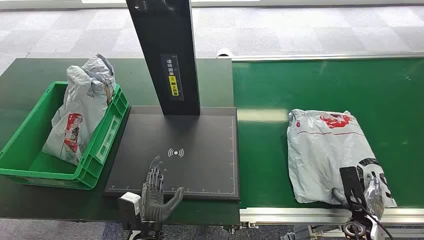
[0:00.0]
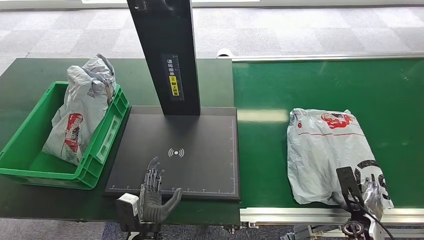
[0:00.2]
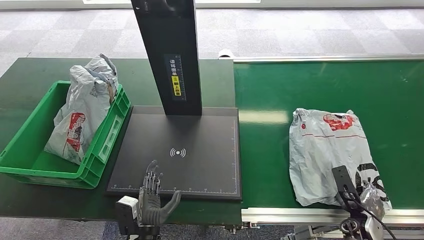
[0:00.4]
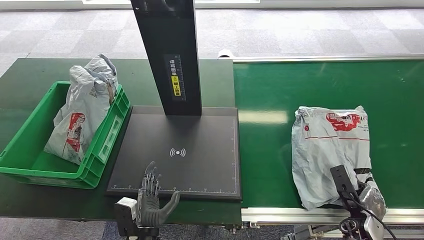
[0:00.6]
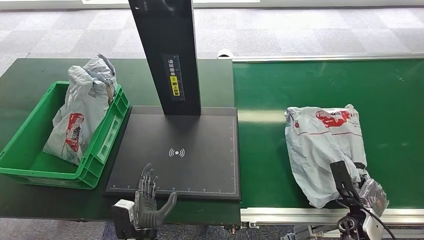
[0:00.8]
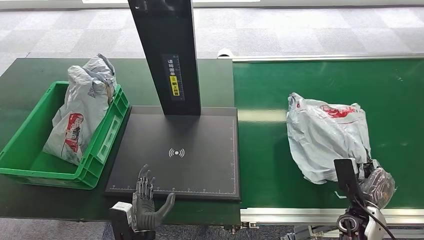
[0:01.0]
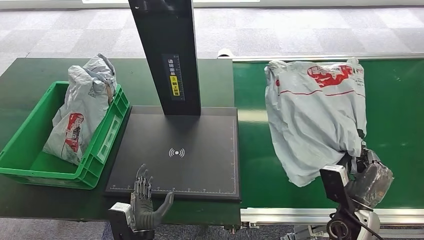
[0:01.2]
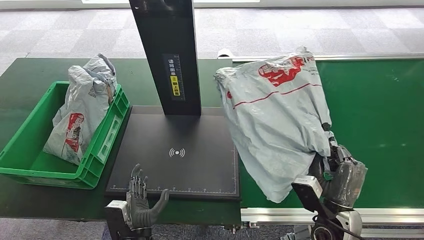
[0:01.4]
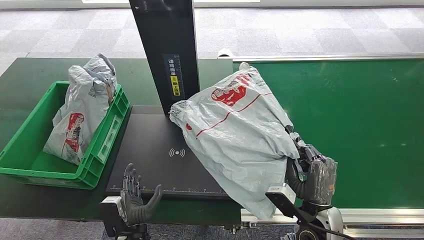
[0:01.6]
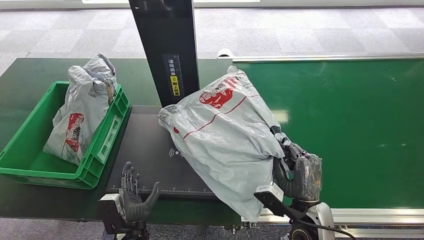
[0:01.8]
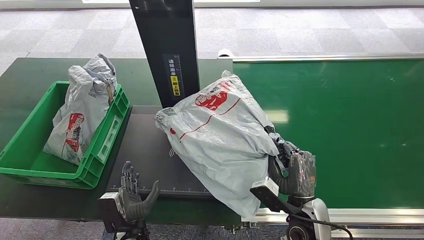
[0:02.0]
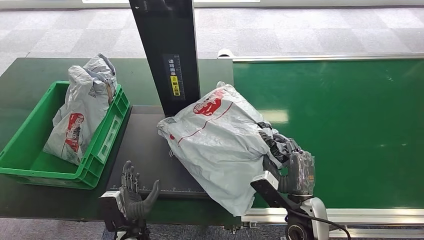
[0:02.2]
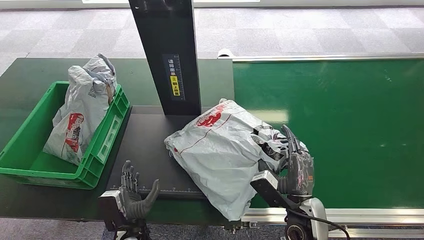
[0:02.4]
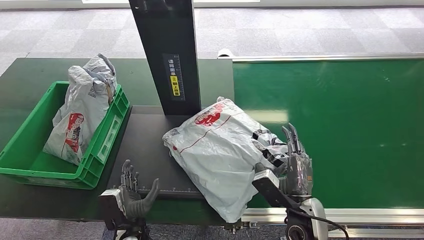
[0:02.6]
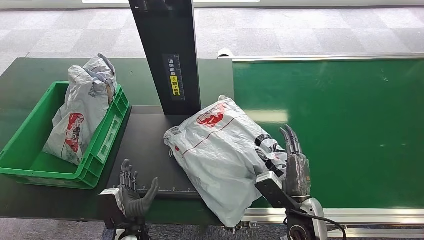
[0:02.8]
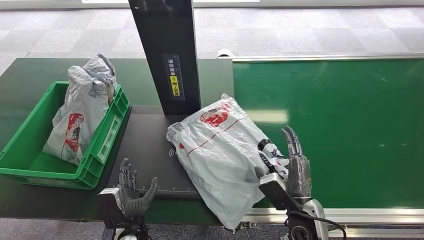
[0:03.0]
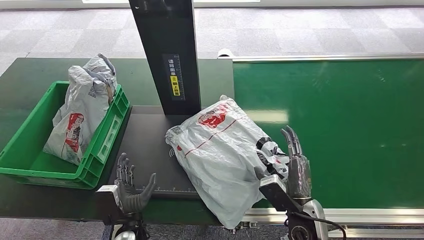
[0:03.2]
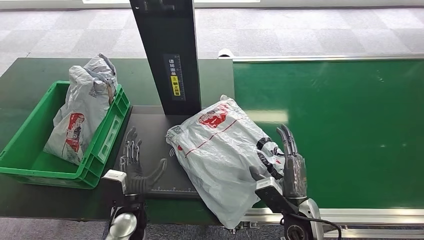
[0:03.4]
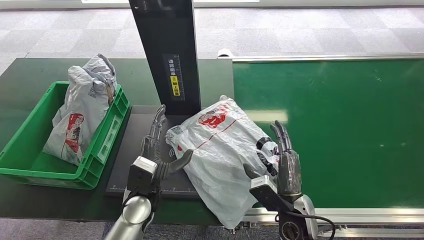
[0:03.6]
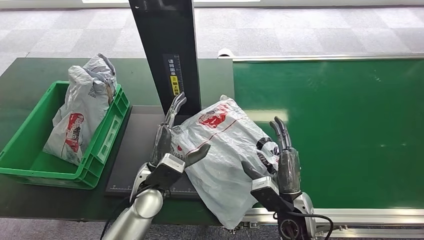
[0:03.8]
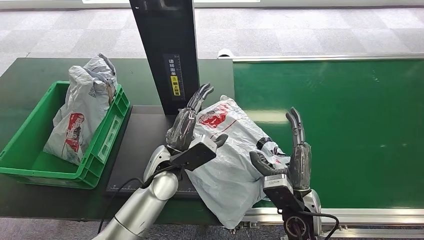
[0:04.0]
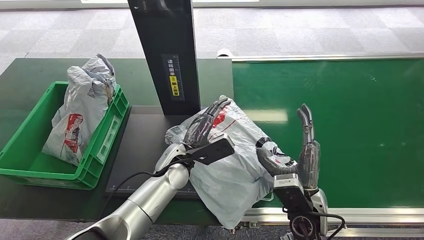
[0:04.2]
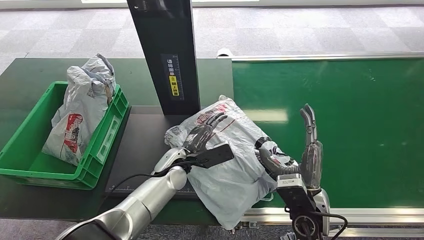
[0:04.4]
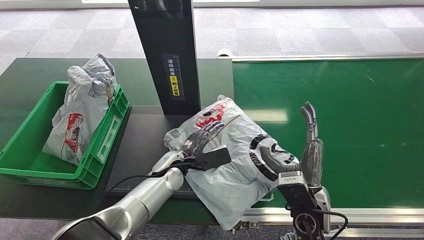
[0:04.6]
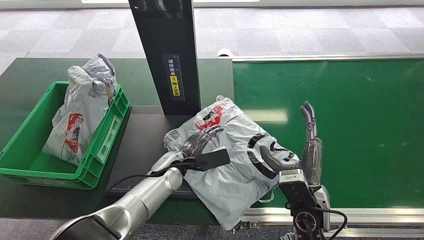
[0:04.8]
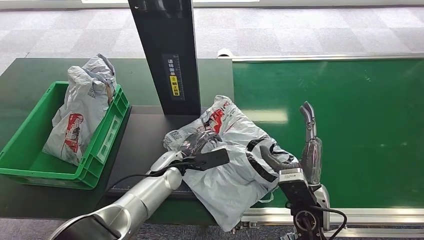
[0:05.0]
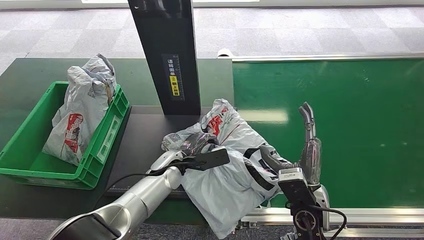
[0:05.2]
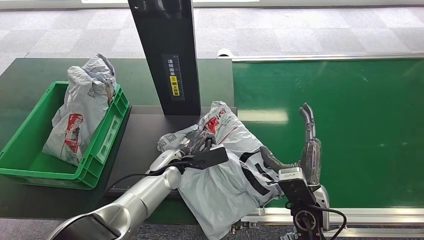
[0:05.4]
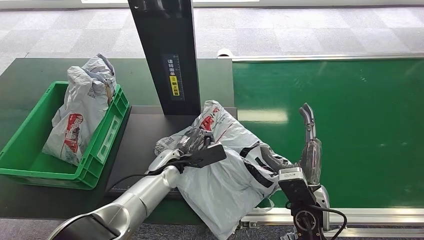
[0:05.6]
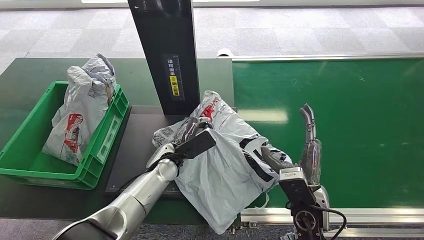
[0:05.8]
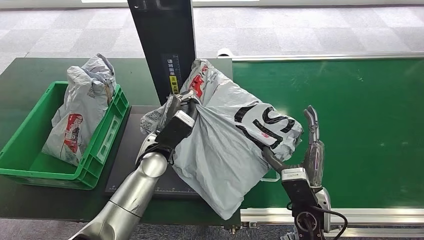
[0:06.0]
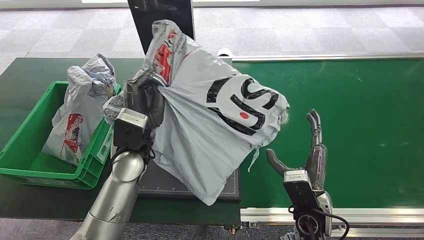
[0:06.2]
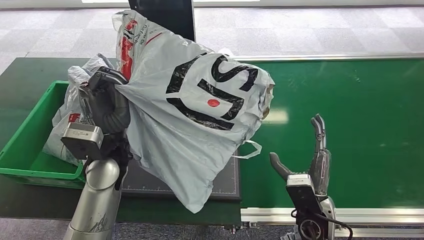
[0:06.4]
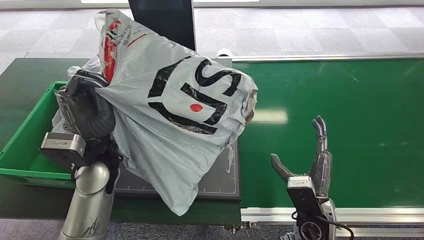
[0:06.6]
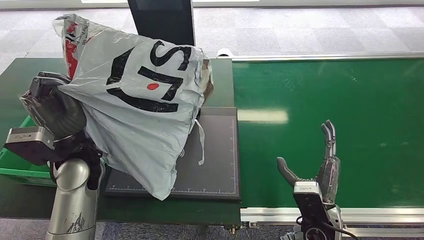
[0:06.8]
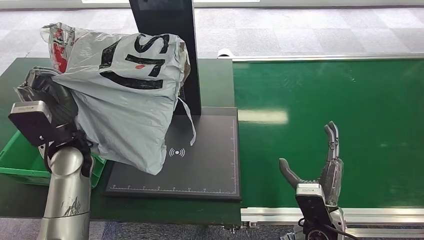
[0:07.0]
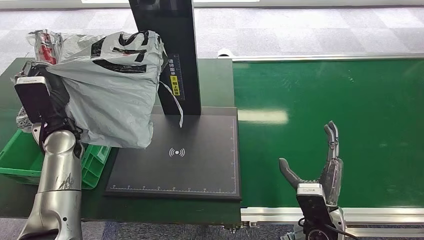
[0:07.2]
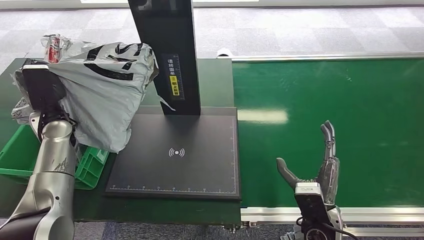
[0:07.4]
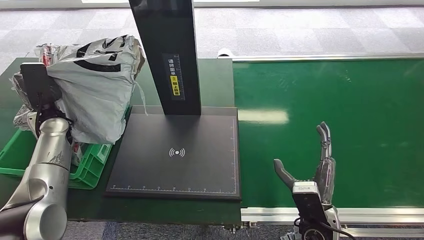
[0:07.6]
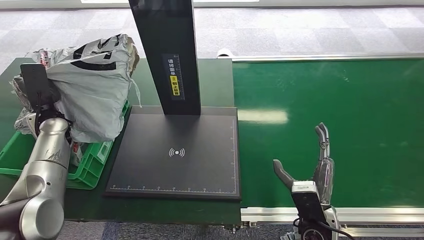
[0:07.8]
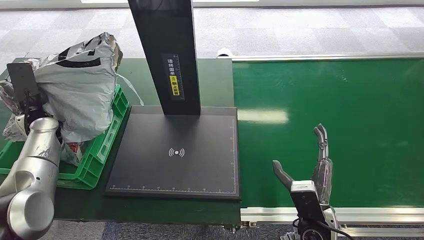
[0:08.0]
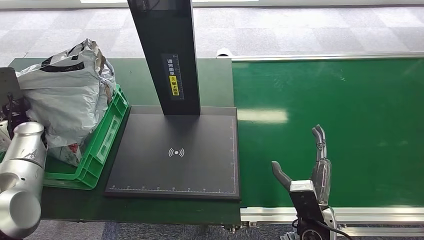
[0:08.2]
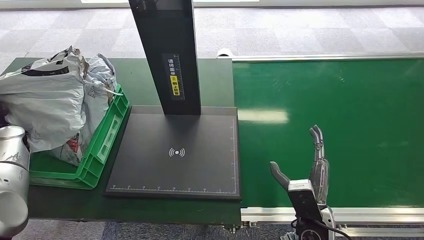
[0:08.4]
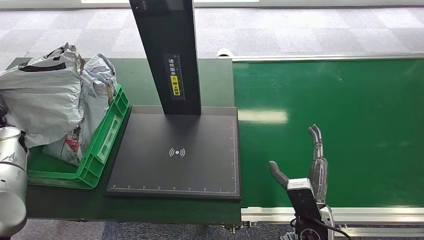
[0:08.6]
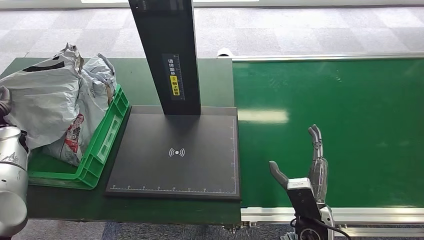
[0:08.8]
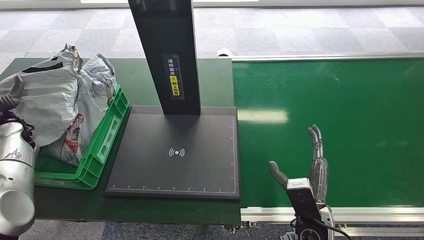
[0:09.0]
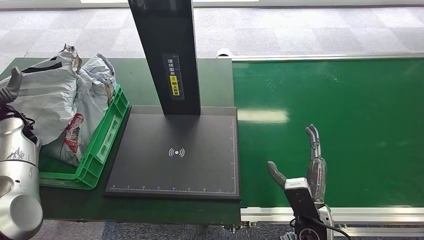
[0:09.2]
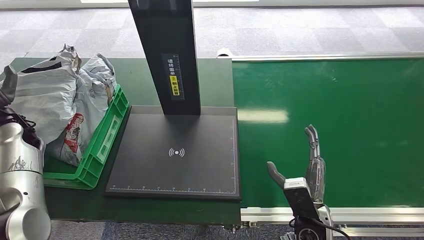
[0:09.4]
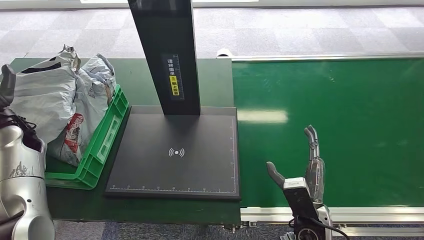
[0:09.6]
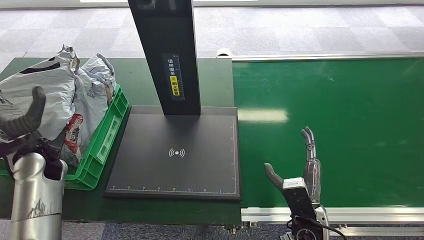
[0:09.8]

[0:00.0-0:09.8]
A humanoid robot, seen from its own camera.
Task of the whole recording: Weigh the package on the weighing device and place it in the left basket.
Step, 0:00.0 to 0:01.4: Pick up the package from the conveyor belt.
Step, 0:01.6 to 0:03.4: Place the package onto the inbound machine.
Step, 0:03.6 to 0:06.4: Pick up the package from the inbound machine.
Step, 0:06.6 to 0:09.8: Place the package into the parcel locker.
0:02.8 to 0:04.2: The right hand ends up some 5 cm from where it was, while the left hand goes approximately 25 cm forward, upward and to the right.
0:04.2 to 0:05.6: The left hand is displaced downward by about 5 cm.
0:08.4 to 0:09.8: The left hand shifts roughly 15 cm to the right and backward.
